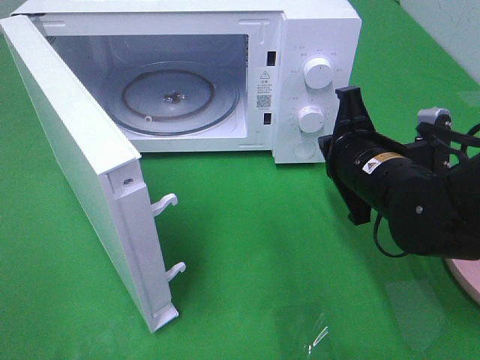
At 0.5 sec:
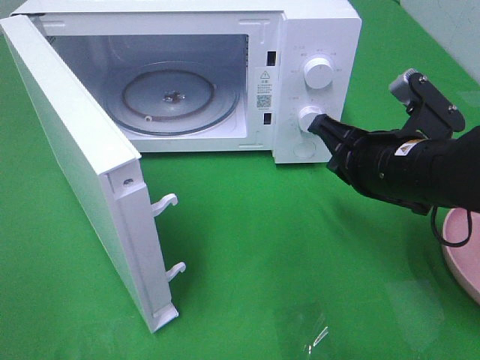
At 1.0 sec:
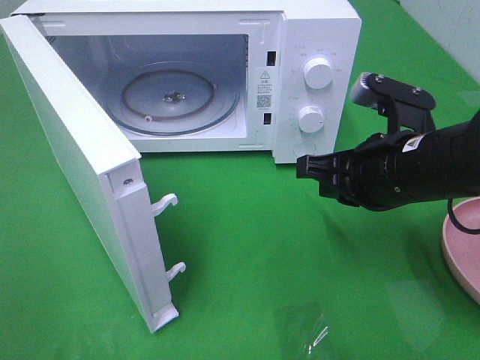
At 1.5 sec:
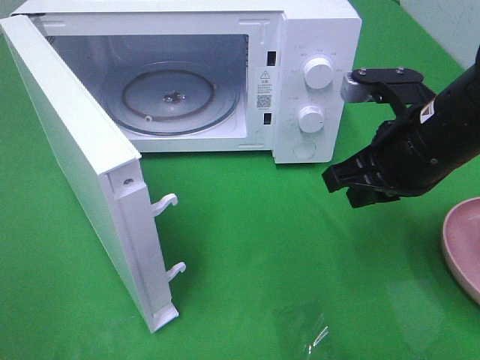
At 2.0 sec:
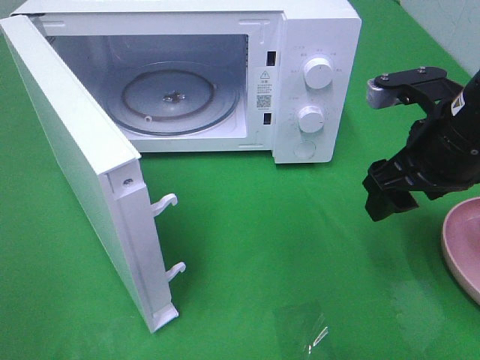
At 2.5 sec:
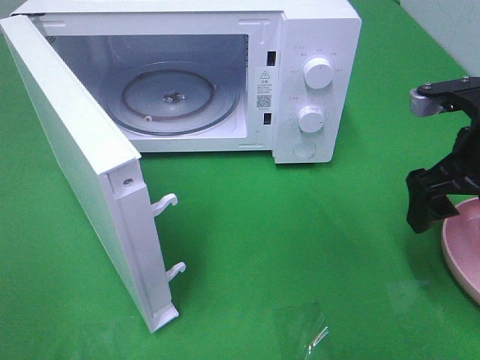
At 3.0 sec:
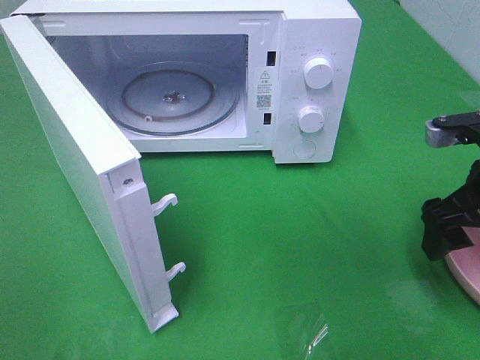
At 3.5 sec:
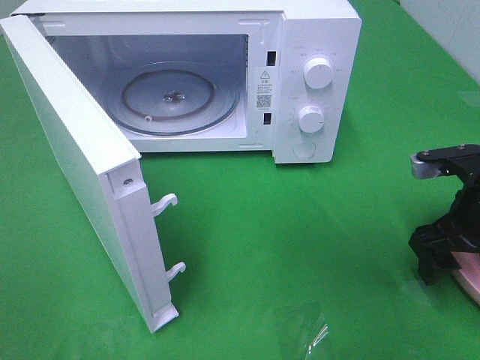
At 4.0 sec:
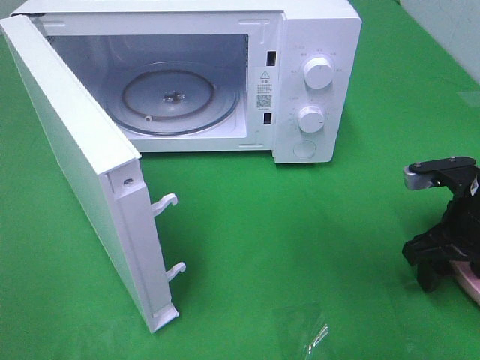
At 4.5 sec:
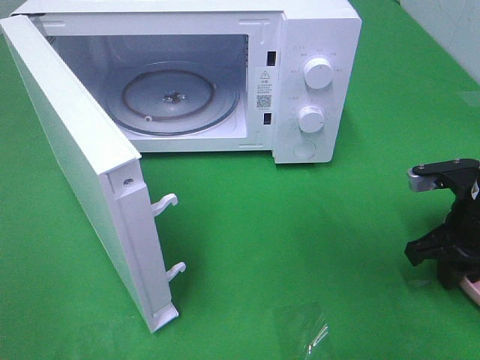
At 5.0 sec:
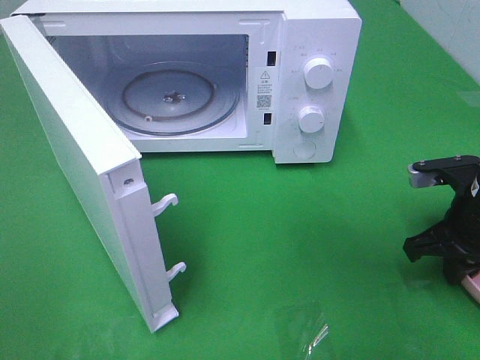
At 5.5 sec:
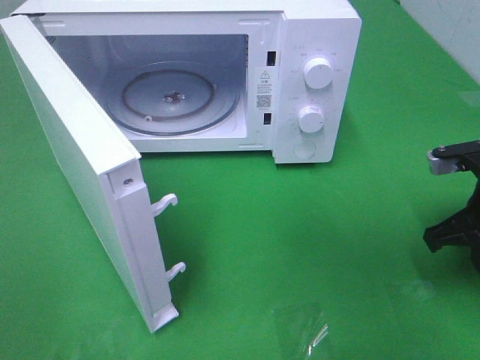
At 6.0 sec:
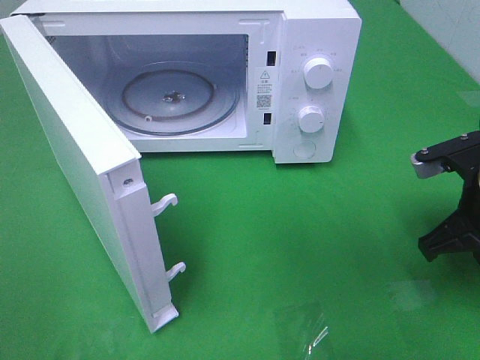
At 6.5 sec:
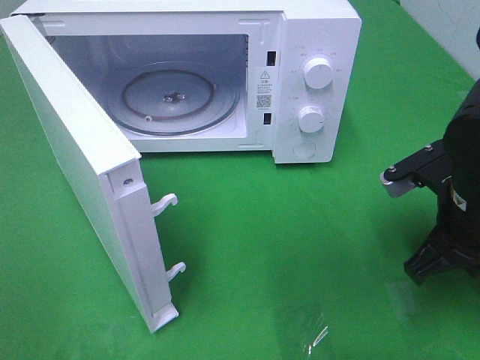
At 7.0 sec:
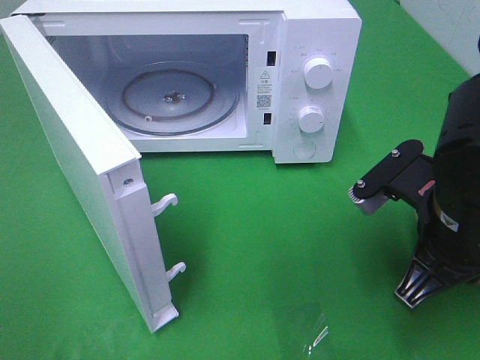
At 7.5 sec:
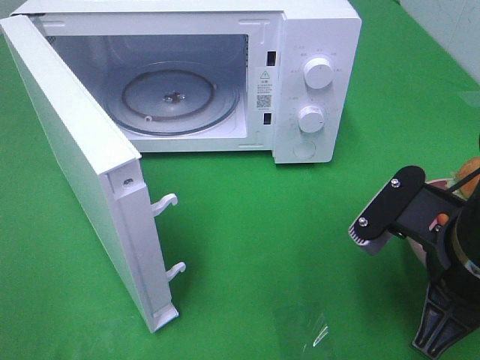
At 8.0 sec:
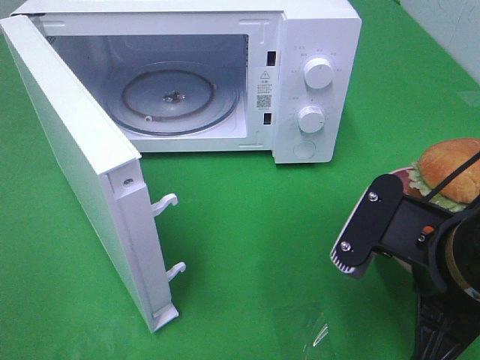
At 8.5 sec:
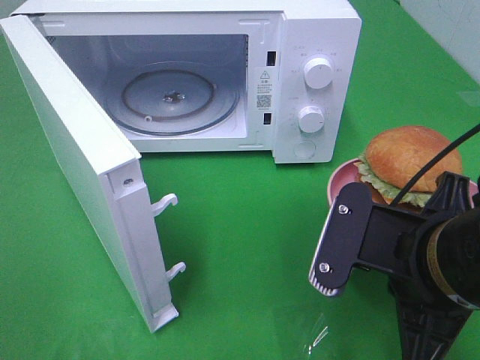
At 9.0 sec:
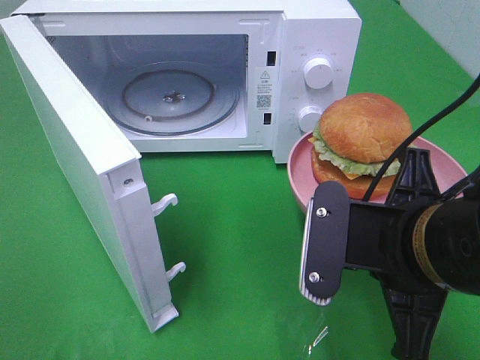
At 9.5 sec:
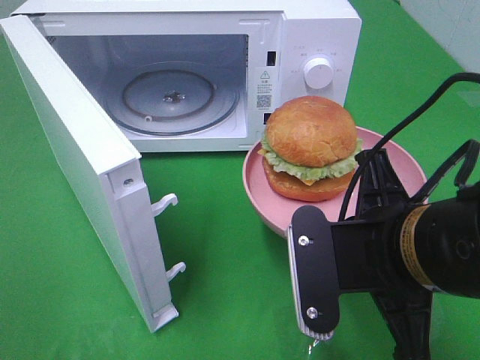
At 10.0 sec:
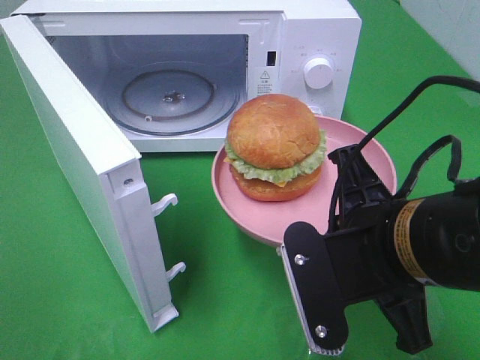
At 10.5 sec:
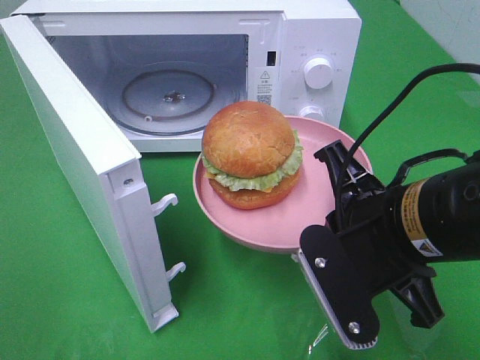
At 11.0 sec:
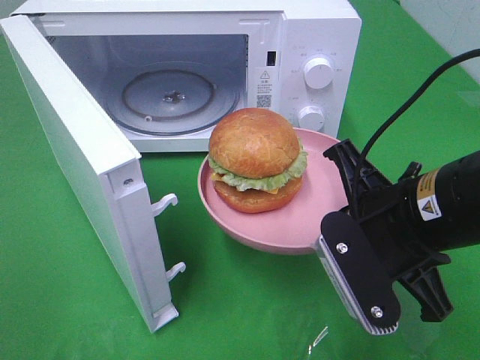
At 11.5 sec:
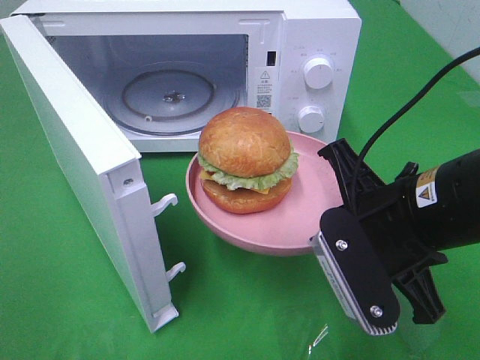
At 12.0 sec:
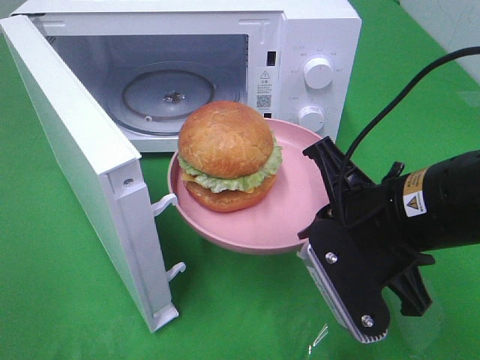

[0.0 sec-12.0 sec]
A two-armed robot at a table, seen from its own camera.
Task of the whole recording: Heat the burger.
Step, 0.0 sec to 5.0 sec: Right hand: grab the plate with the hamburger.
0.0 sec to 2.0 sec: The right gripper heads upward and to the right, covering about 10 cm, and opens up.
2.0 sec to 4.0 sec: The right gripper goes some 10 cm downward and to the right.
4.0 sec to 6.0 sec: The right gripper closes its fingers.
6.0 sec to 8.0 sec: The right gripper heads backward and to the left, covering about 15 cm.
10.0 sec to 12.0 sec: The grippers stay close to where they were, moving slightly.

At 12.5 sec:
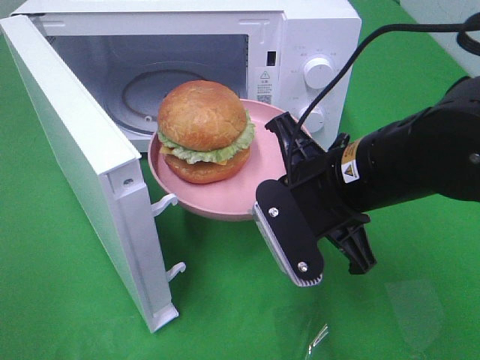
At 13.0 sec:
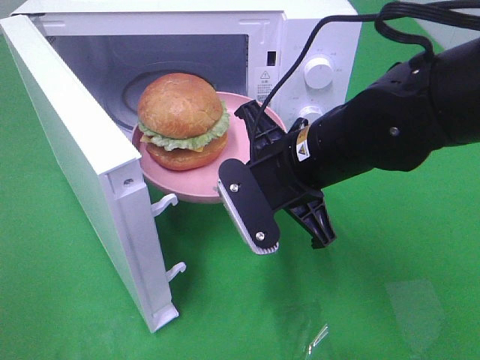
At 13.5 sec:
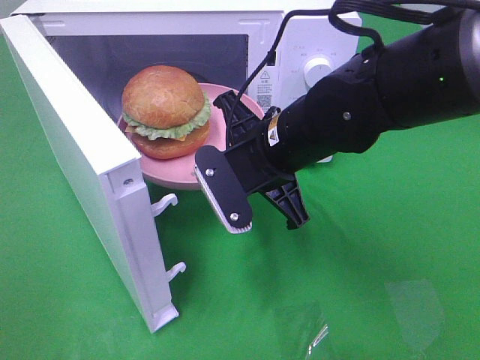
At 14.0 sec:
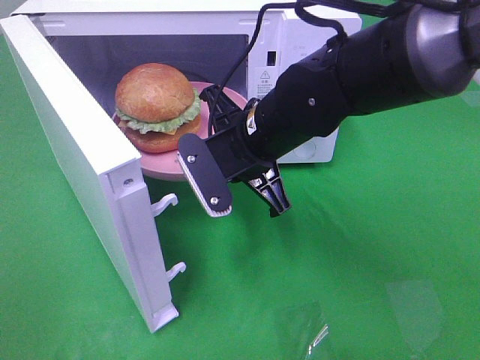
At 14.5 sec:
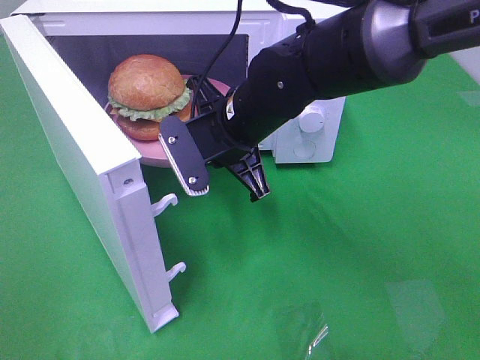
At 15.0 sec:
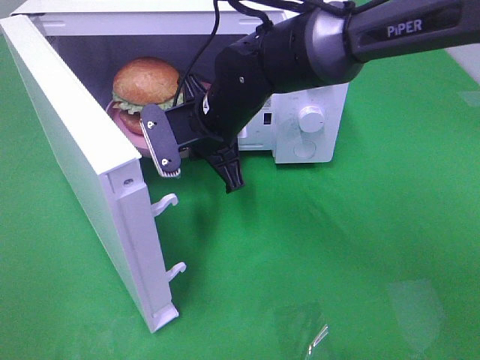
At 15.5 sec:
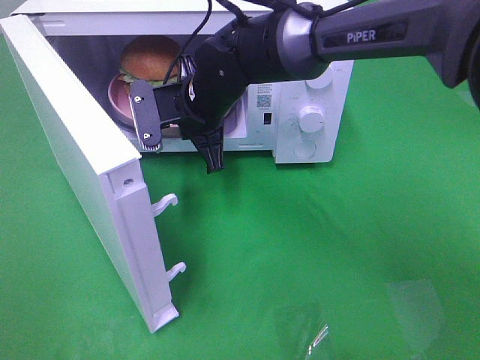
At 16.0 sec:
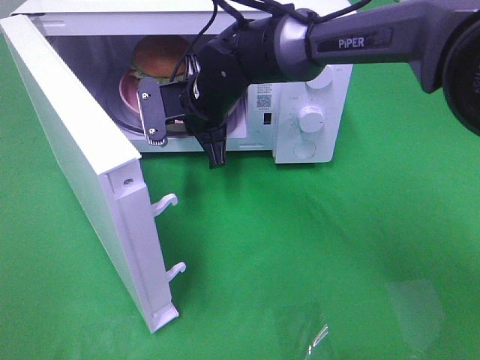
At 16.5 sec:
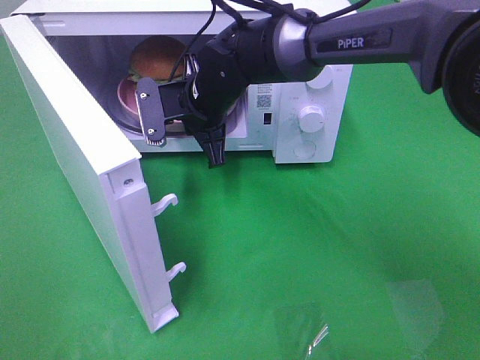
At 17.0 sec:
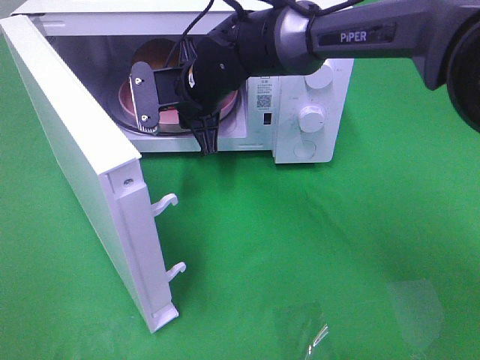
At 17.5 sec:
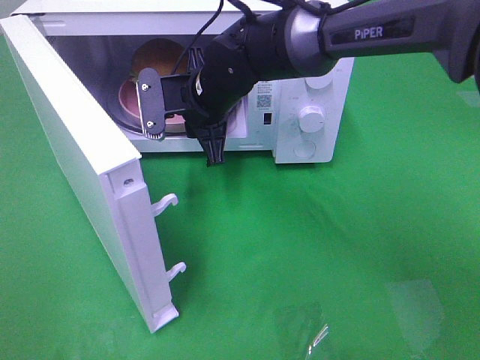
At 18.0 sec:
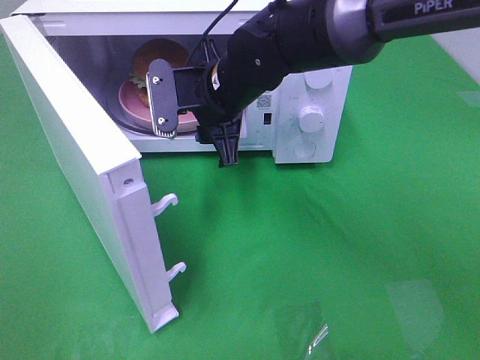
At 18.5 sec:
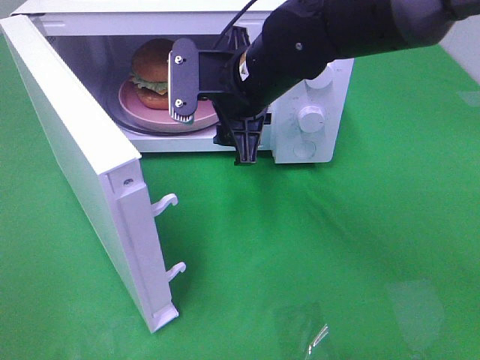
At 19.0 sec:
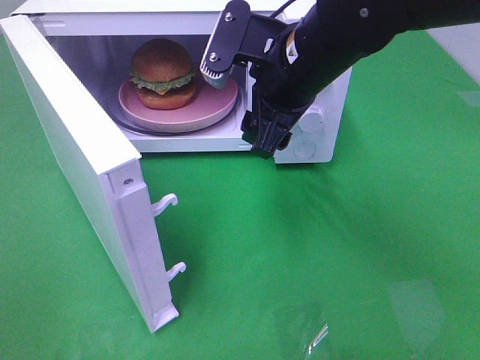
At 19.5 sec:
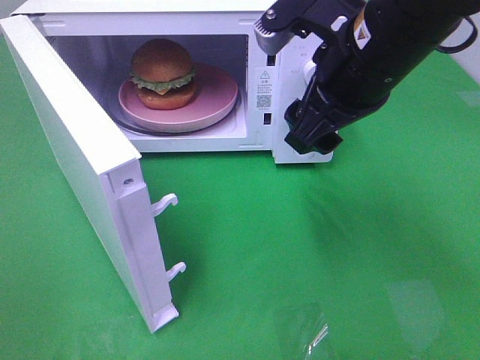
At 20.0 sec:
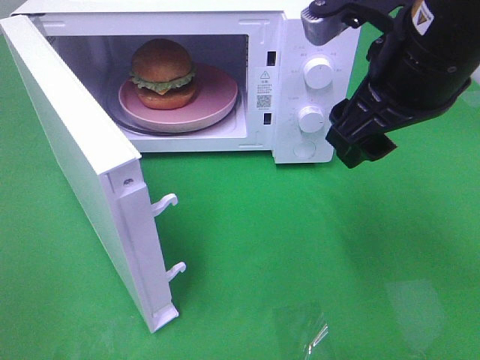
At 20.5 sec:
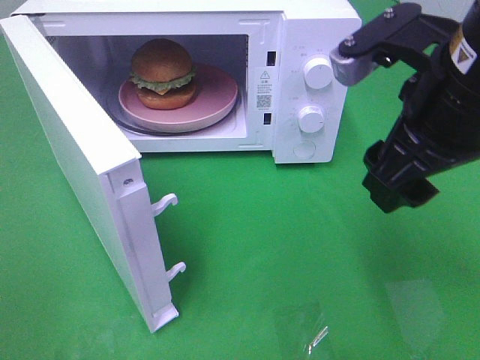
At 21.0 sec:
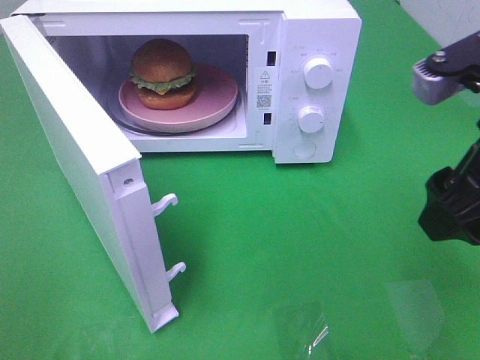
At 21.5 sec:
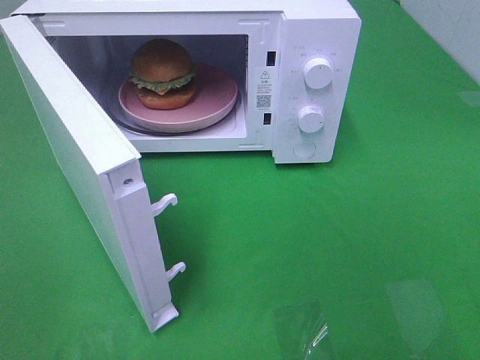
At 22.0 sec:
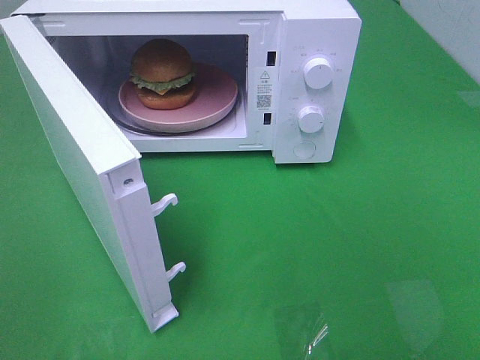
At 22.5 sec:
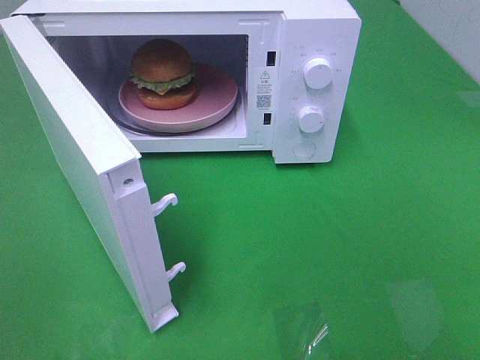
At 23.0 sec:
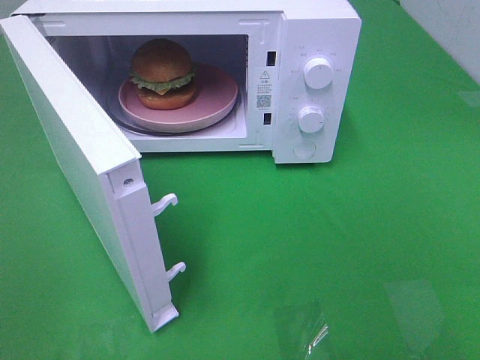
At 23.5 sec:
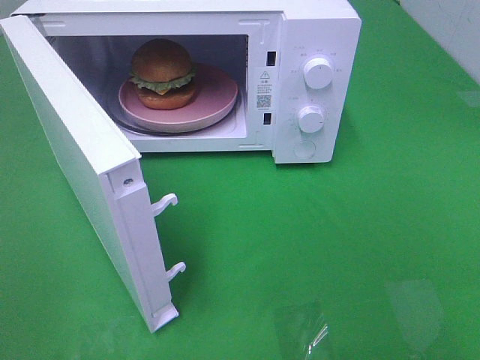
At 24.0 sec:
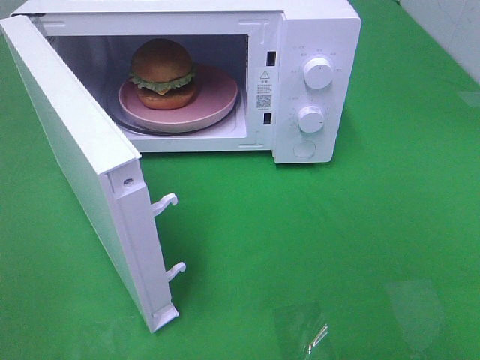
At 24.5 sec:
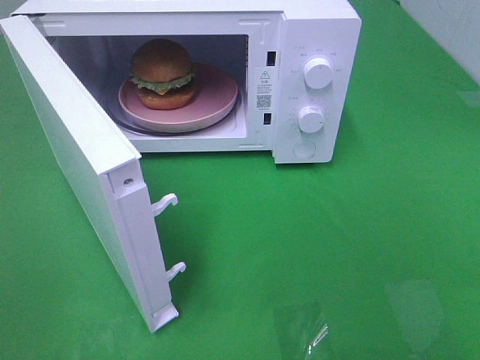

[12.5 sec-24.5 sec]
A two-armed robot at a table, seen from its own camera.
Task of the whole recording: Heat the burger.
Step, 12.5 sec to 17.0 sec: Right hand: place the plate in the microwave.
12.5 sec to 14.5 sec: The right gripper is displaced forward and to the left by about 15 cm.
14.5 sec to 16.5 sec: The right gripper travels forward by some 10 cm.
16.5 sec to 18.5 sec: The right gripper is displaced backward, upward and to the right by about 10 cm, and opens up.
18.5 sec to 20.5 sec: The right gripper goes approximately 20 cm to the right, backward and upward.
20.5 sec to 22.5 sec: The right gripper goes approximately 25 cm backward and to the right.
22.5 sec to 24.5 sec: Both grippers stay about where they are.

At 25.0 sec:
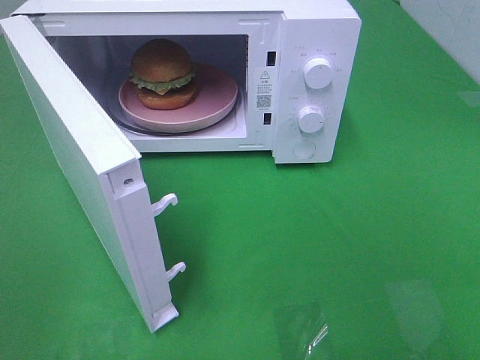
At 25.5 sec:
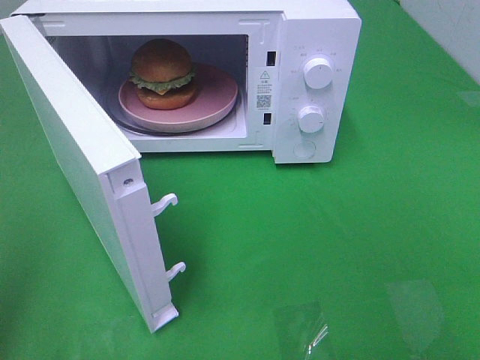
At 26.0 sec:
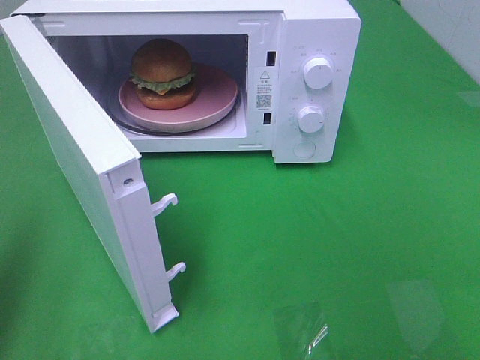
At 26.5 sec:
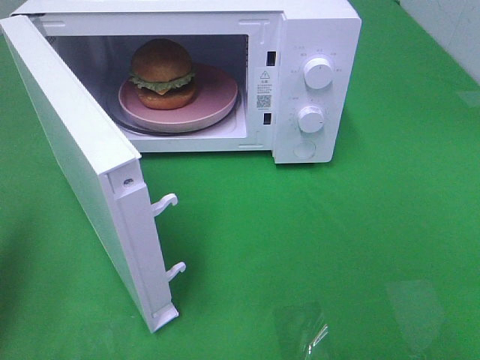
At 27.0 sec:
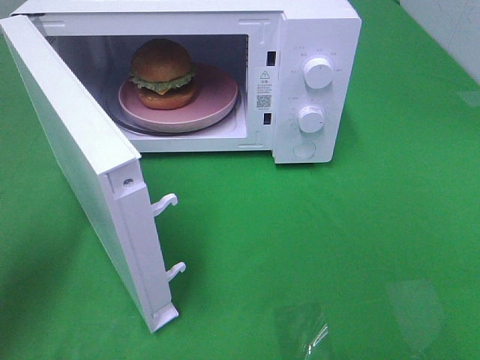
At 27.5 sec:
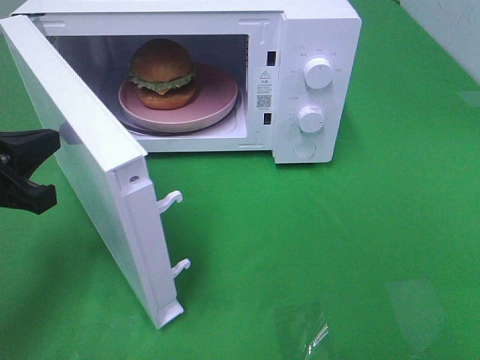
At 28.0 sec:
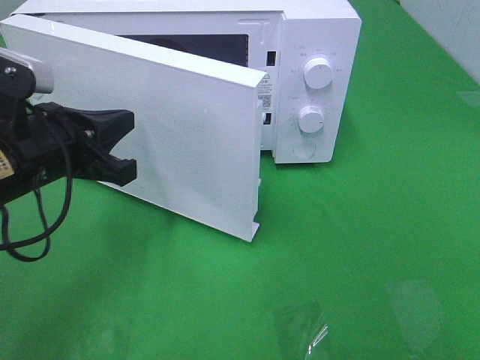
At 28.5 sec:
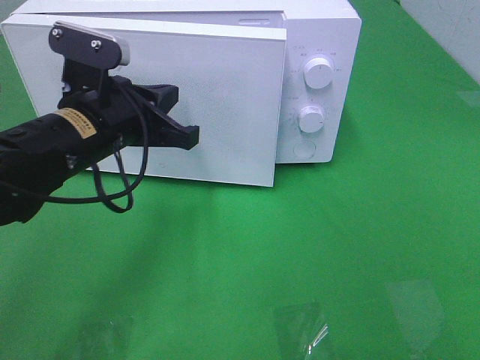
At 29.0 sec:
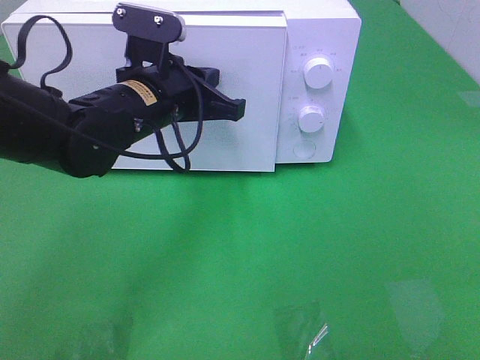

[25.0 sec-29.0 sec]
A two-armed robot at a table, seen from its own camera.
Task of the whole recording: Heat the burger.
25.0 sec to 27.0 sec: The left gripper moves forward and downward, some 20 cm, and closes up.
27.0 sec to 29.0 sec: The left gripper goes approximately 25 cm to the right and forward.
